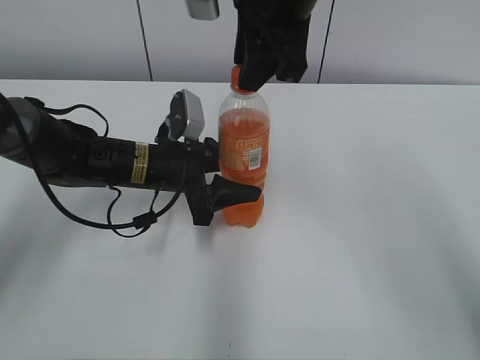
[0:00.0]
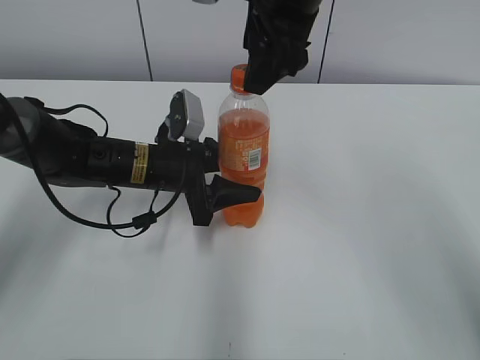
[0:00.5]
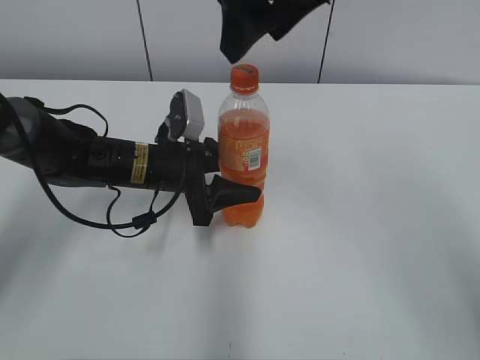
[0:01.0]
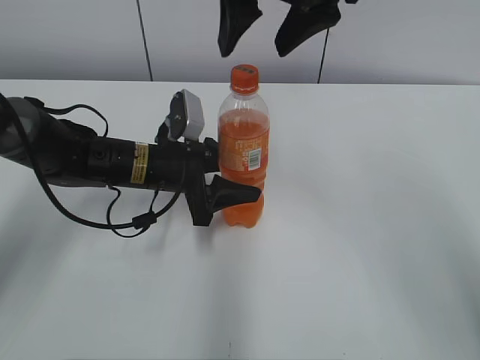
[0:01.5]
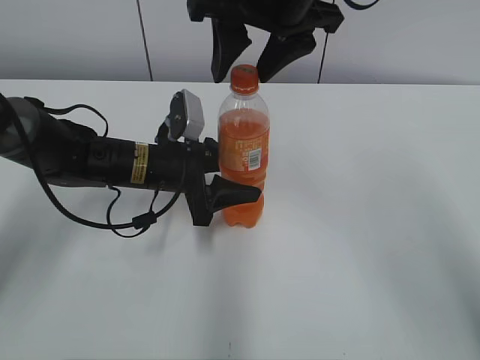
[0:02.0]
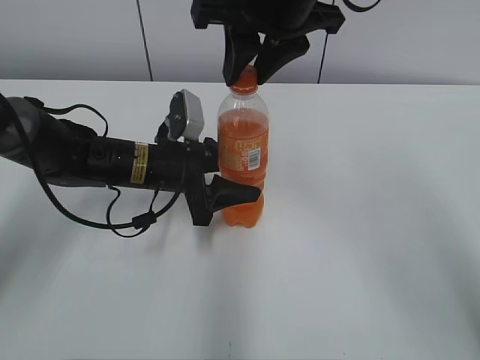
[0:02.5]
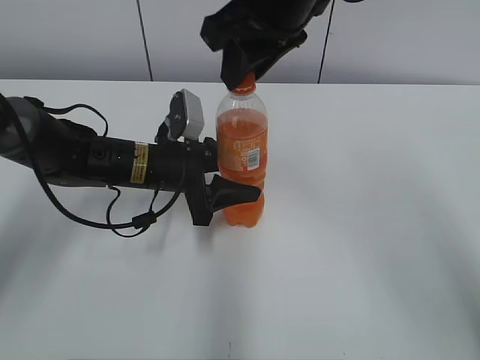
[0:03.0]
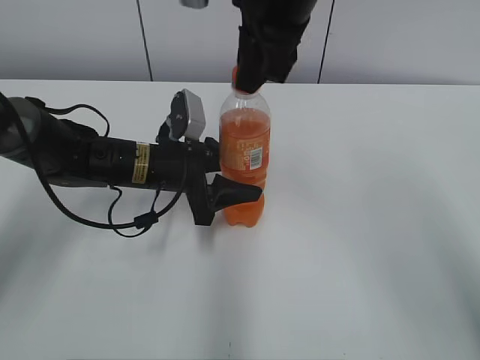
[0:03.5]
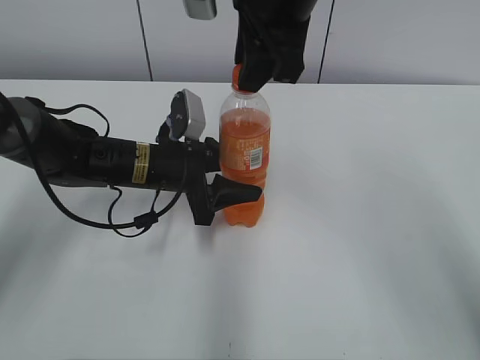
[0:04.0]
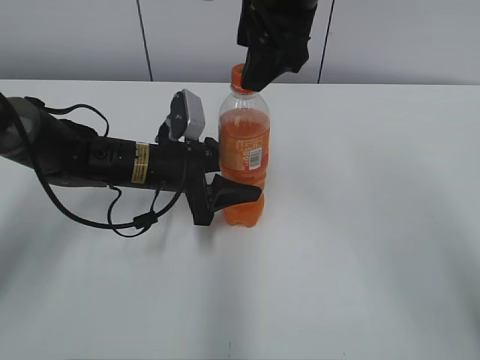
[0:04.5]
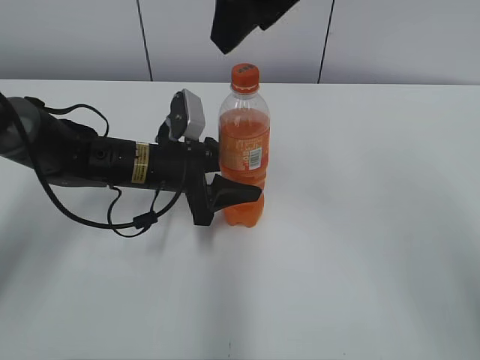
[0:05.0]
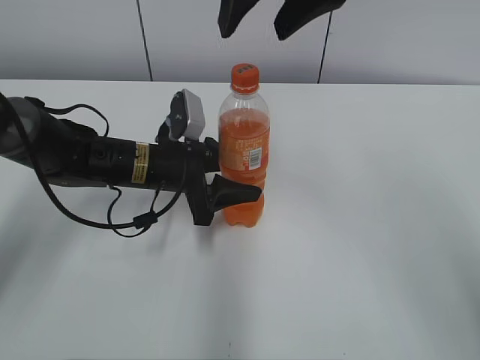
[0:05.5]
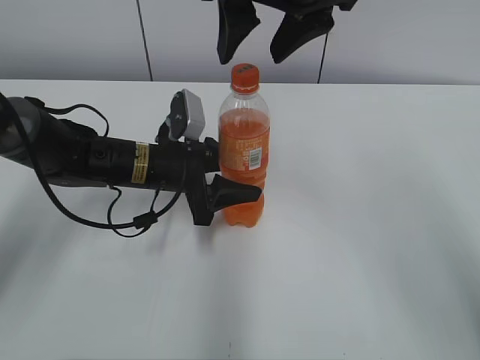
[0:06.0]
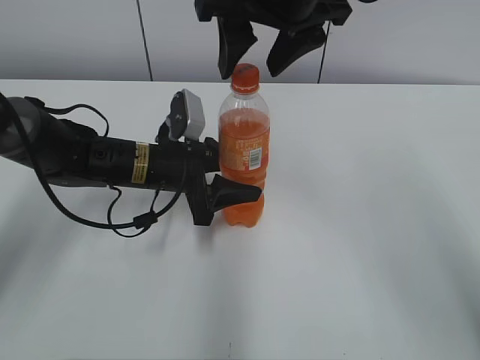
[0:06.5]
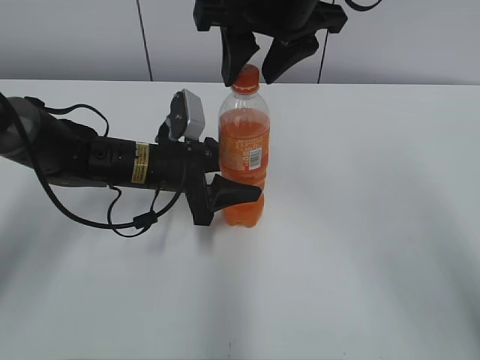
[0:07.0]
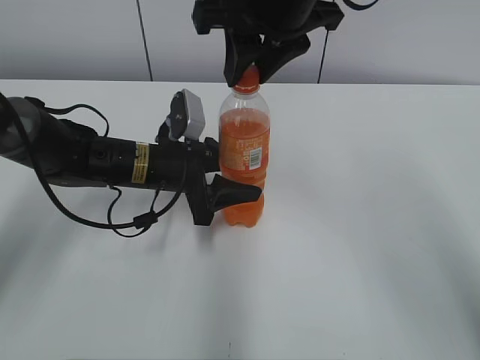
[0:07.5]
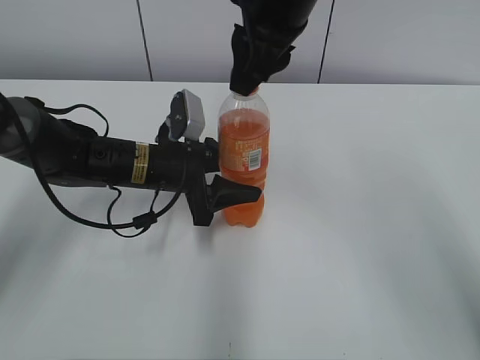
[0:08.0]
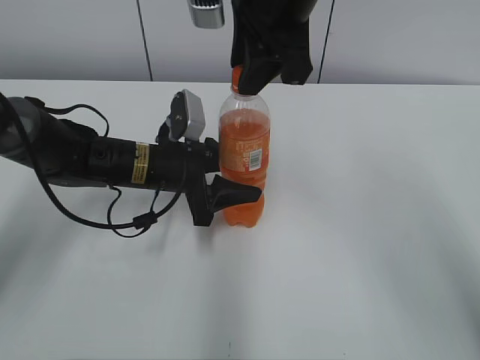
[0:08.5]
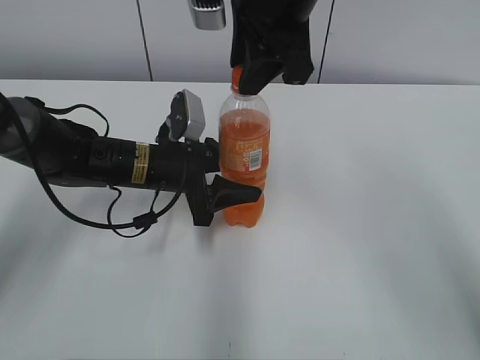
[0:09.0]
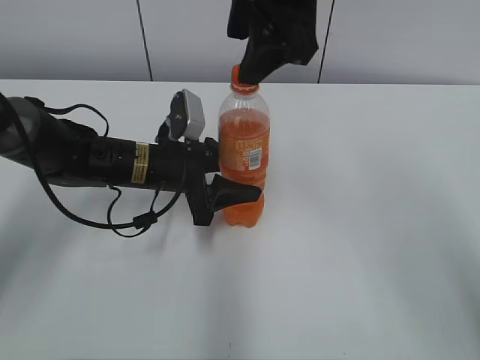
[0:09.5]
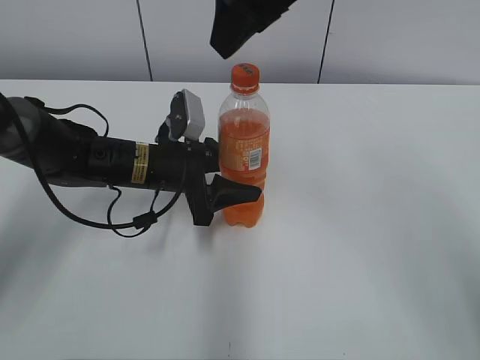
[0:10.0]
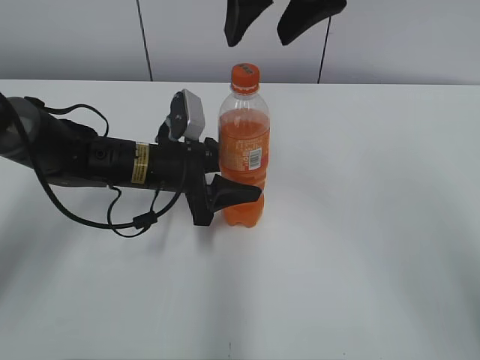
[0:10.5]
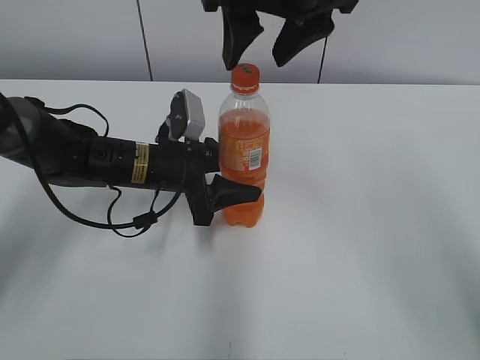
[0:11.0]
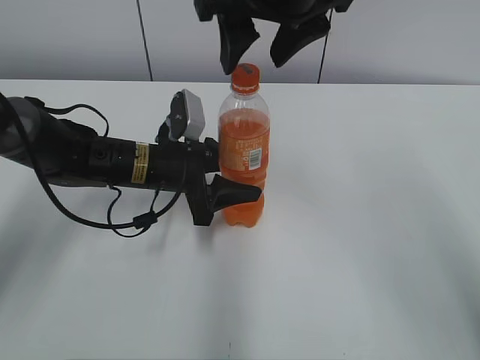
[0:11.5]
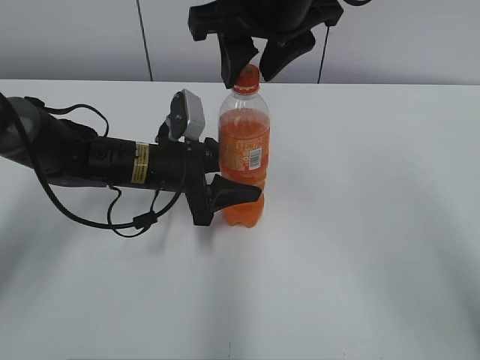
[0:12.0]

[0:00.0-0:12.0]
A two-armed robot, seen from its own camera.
0:00.0 to 0:02.0: The right gripper opens its fingers.
0:02.0 to 0:04.0: The right gripper closes its fingers.
0:04.0 to 0:06.0: The right gripper opens up.
0:06.0 to 0:08.0: The right gripper closes.
0:08.0 to 0:10.0: The right gripper changes place by roughly 5 cm, and opens up.
0:10.0 to 0:12.0: The right gripper ends up about 5 cm from where it was, and closes.

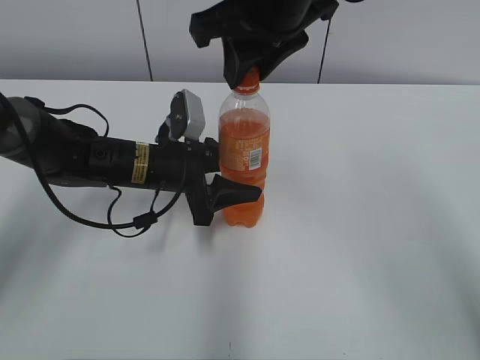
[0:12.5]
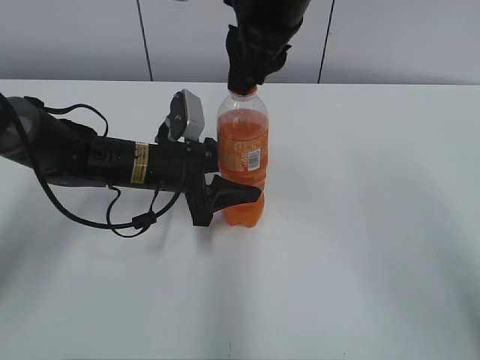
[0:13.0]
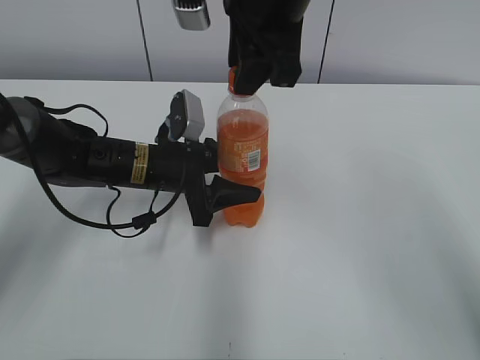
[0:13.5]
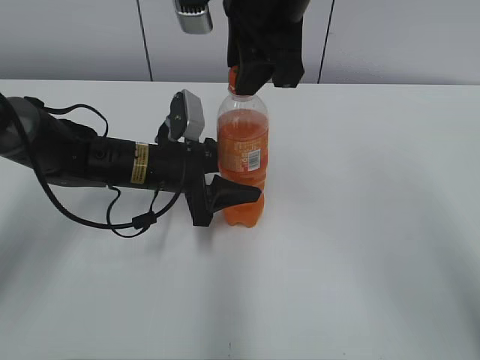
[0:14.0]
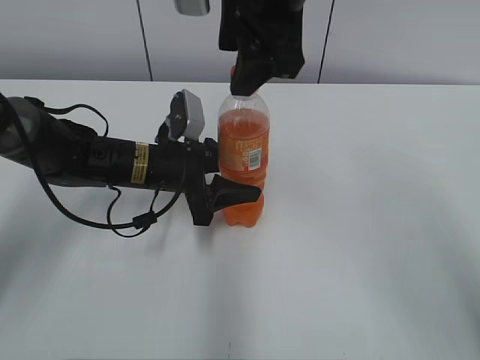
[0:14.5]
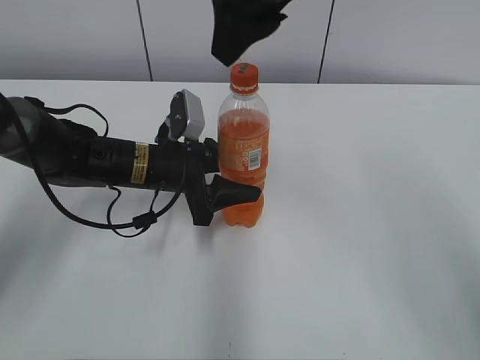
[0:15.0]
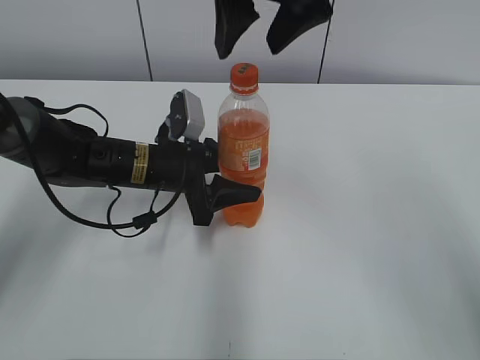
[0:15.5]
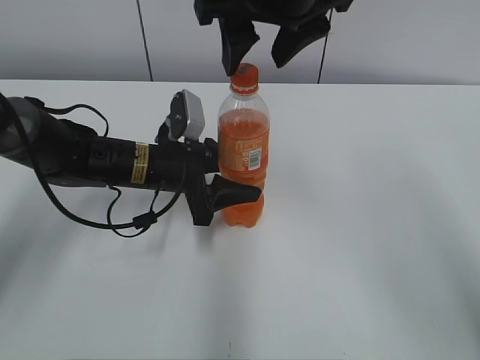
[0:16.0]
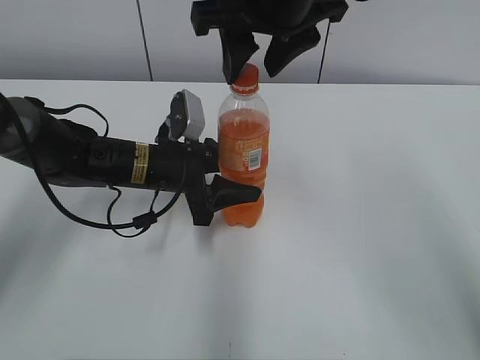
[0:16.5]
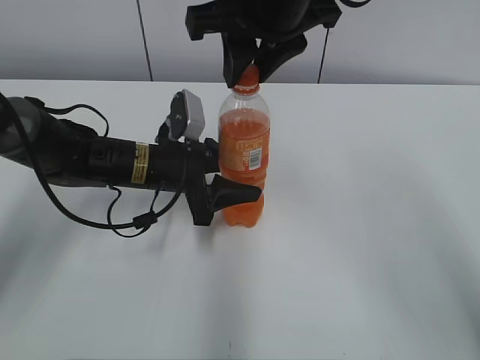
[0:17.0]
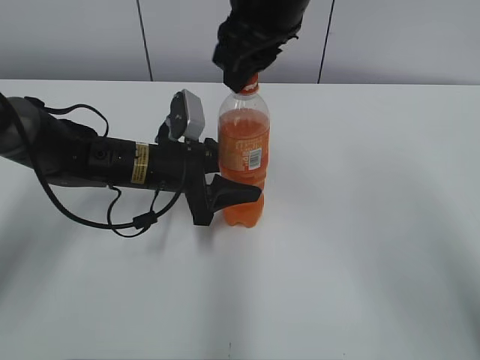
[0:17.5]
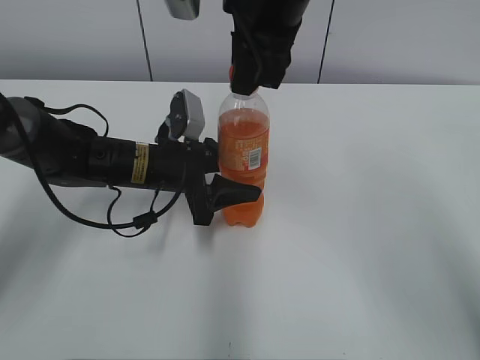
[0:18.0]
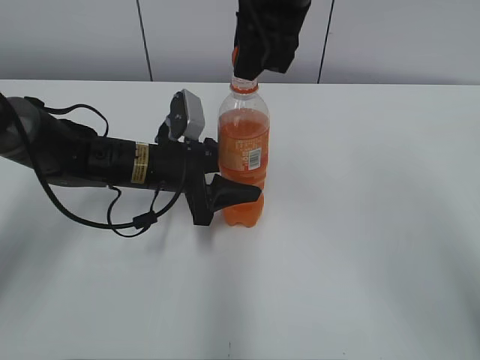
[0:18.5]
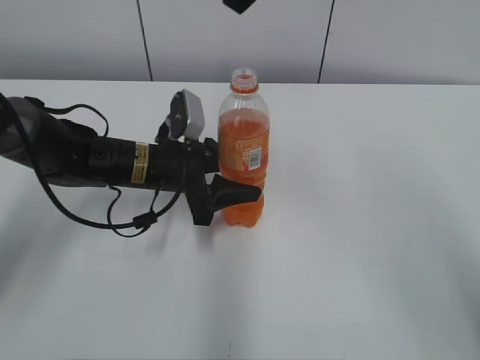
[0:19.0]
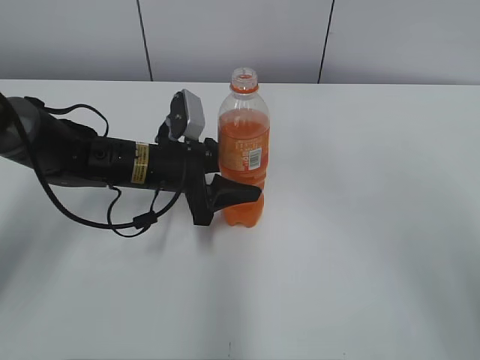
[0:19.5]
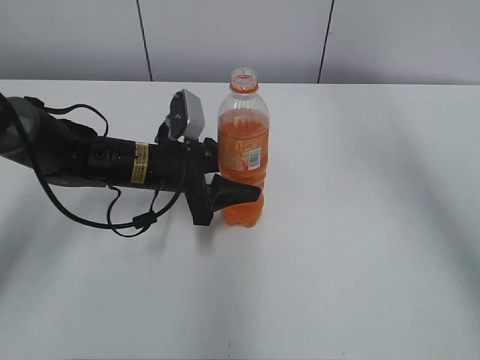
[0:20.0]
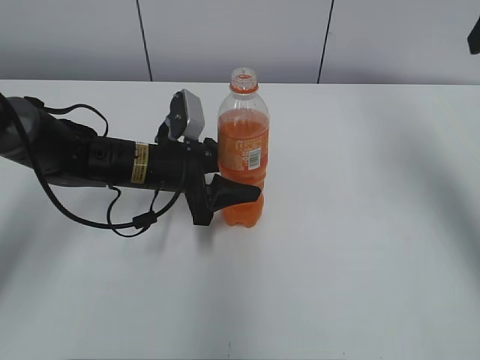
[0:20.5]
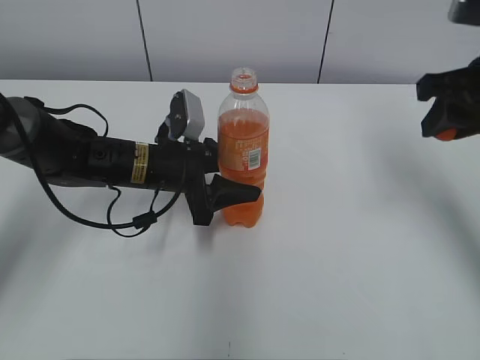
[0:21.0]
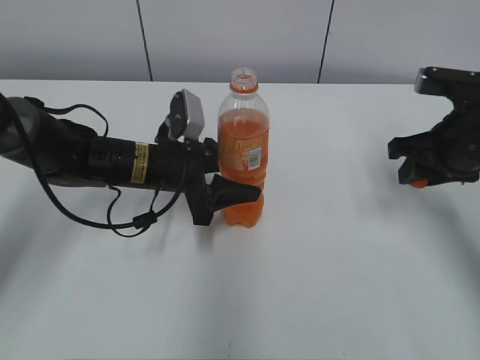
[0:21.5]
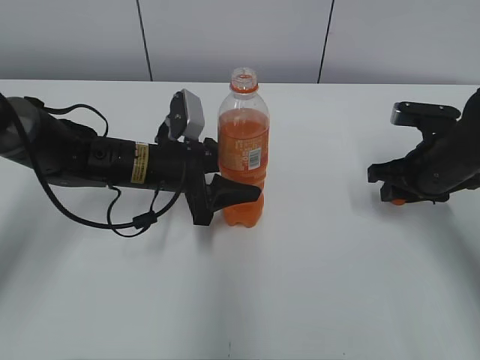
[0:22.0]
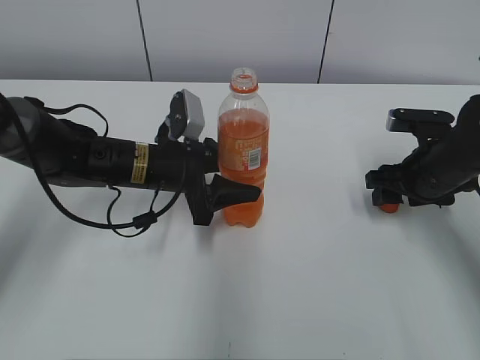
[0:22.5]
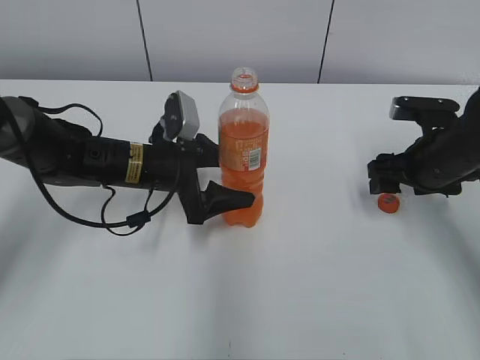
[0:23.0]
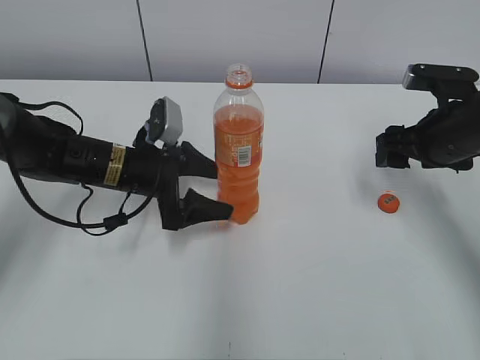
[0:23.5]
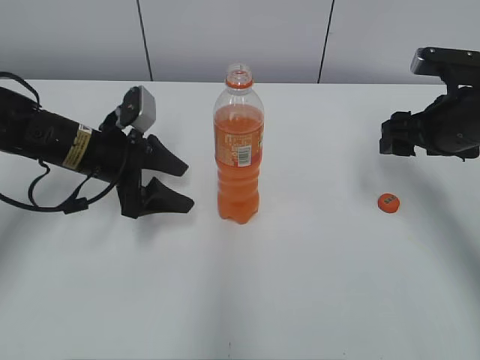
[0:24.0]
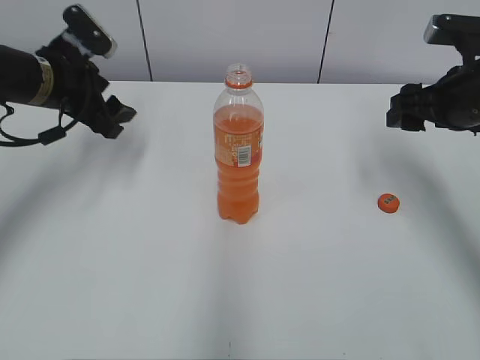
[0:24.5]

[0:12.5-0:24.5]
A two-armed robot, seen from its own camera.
Step, 0:18.5 to 0:22.0: Place the bottle cap on the right.
Step, 0:22.5 to 0:23.0: Place the Mirinda with the left hand.
0:12.5 to 0:14.5: The right gripper opens.
0:16.5 to 0:18.5: The right gripper closes up.
0:18.5 to 0:20.5: The right gripper is displaced to the right by roughly 20 cm.
0:20.5 to 0:22.5: The right gripper travels downward by approximately 25 cm, and opens its fingers.
0:22.5 to 0:24.5: The left gripper is displaced to the left and upward by roughly 15 cm, and opens up; the right gripper is displaced upward by about 10 cm.

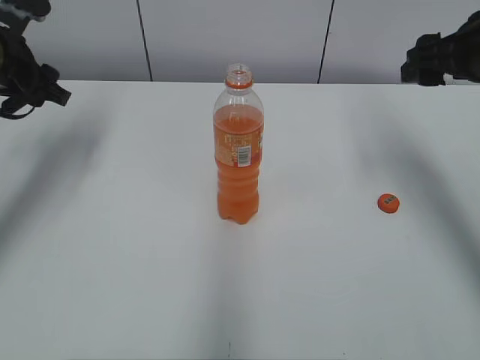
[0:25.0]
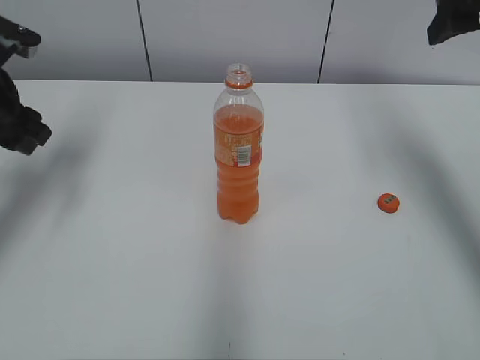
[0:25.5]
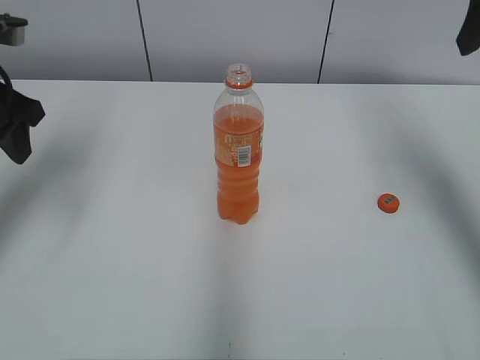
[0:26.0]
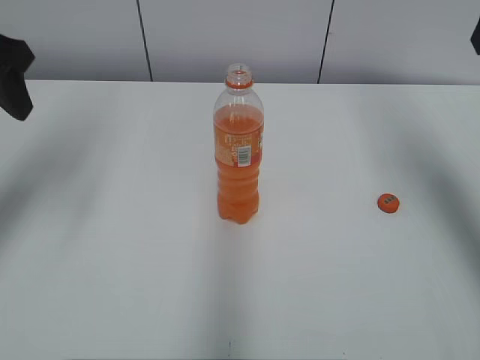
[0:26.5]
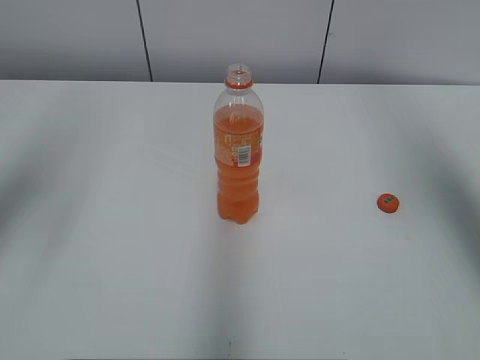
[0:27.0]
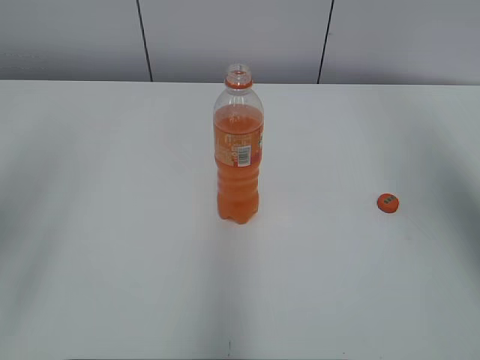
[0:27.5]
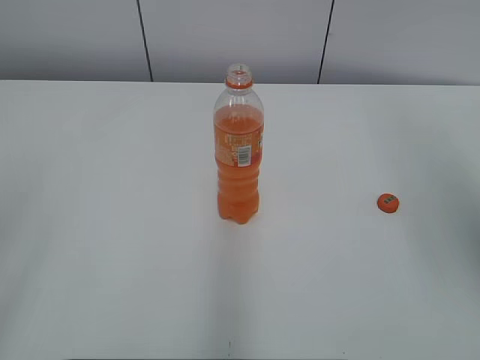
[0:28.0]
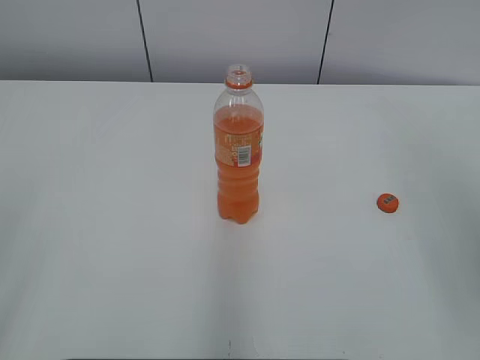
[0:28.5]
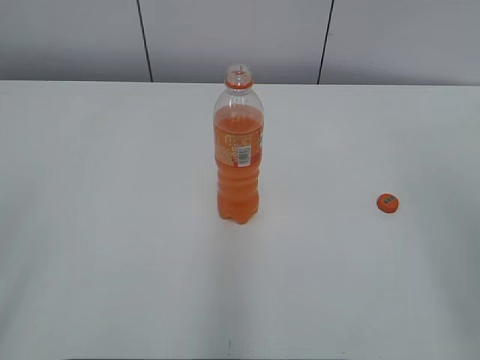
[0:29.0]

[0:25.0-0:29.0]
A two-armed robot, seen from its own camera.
0:25.0 to 0:27.0: The left gripper travels backward and upward by about 20 cm; the right gripper is displaced upward and backward by approximately 20 cm.
0:27.0 to 0:29.0: The left gripper shifts roughly 20 cm backward and downward, while the right gripper moves backward, roughly 20 cm.
